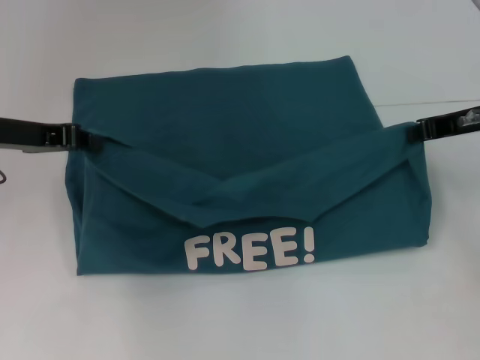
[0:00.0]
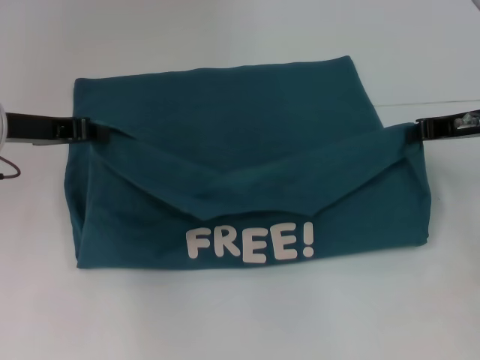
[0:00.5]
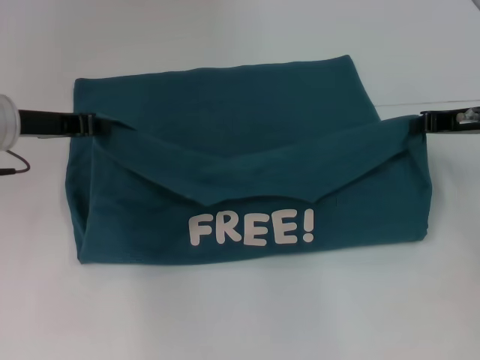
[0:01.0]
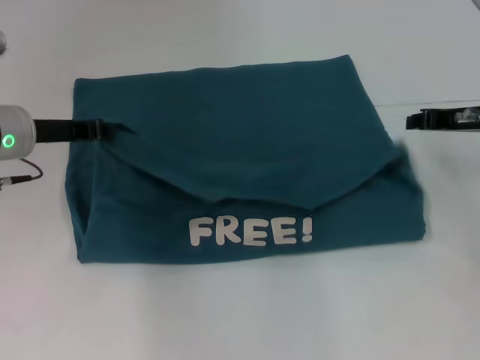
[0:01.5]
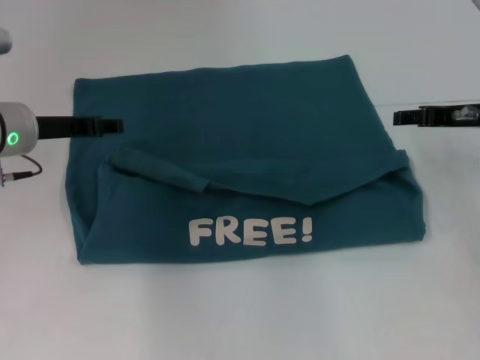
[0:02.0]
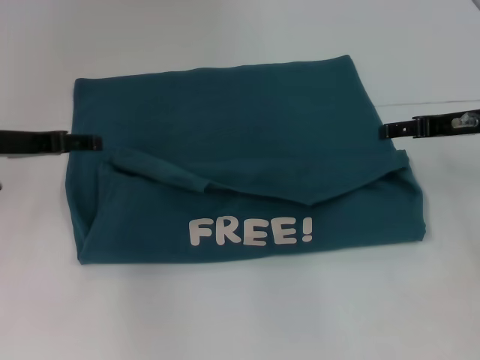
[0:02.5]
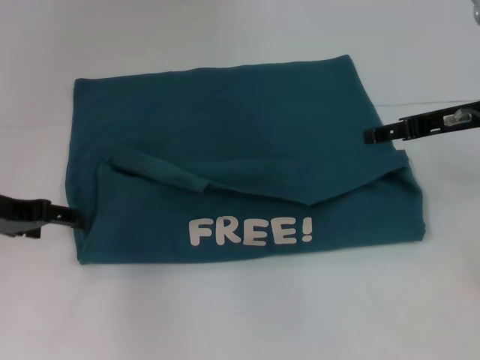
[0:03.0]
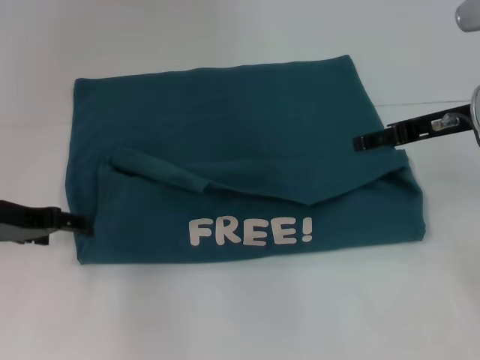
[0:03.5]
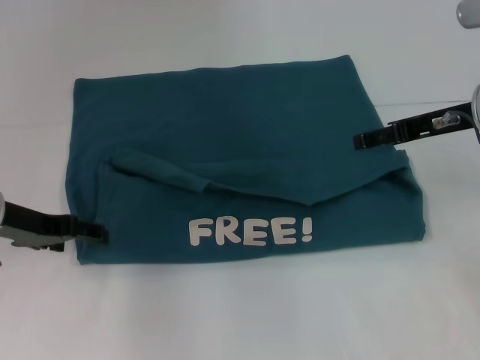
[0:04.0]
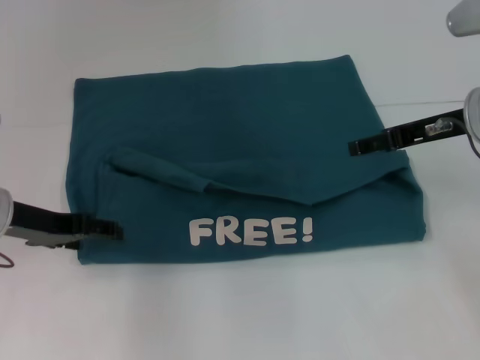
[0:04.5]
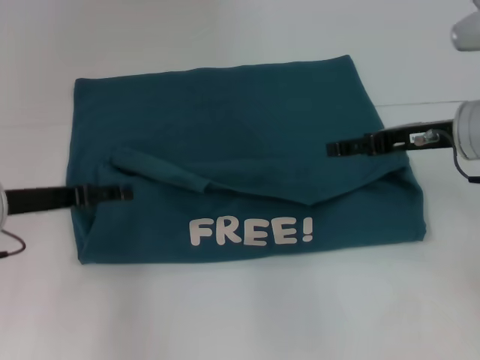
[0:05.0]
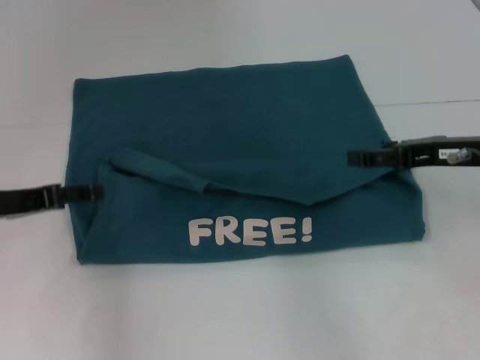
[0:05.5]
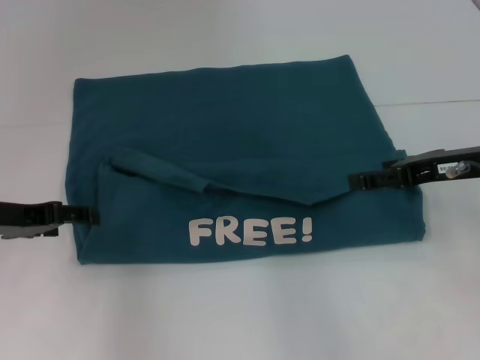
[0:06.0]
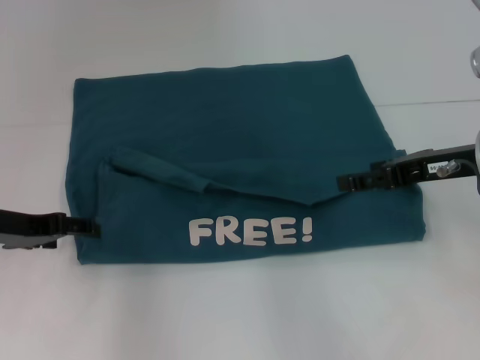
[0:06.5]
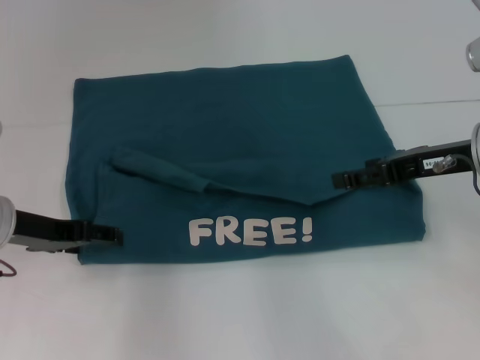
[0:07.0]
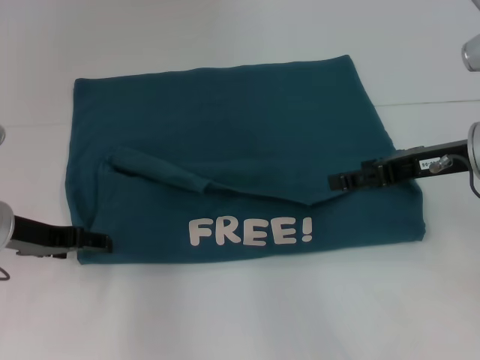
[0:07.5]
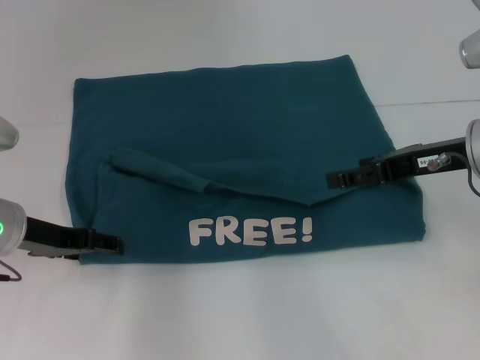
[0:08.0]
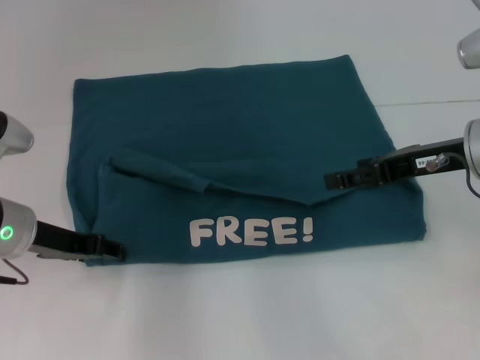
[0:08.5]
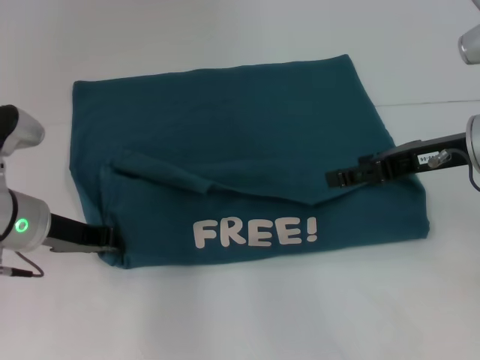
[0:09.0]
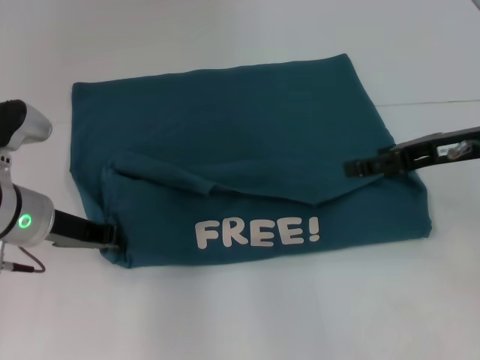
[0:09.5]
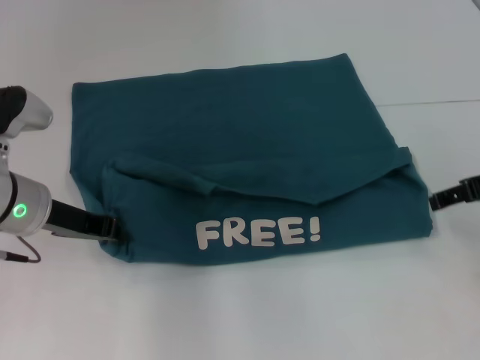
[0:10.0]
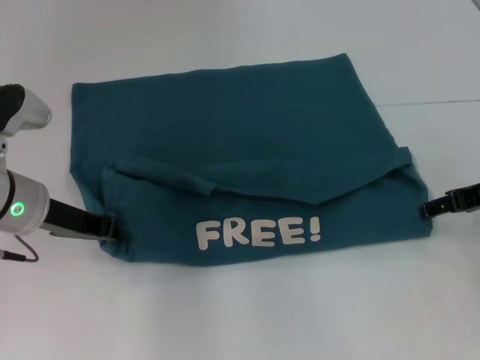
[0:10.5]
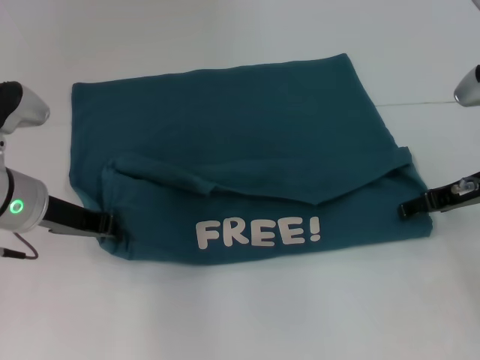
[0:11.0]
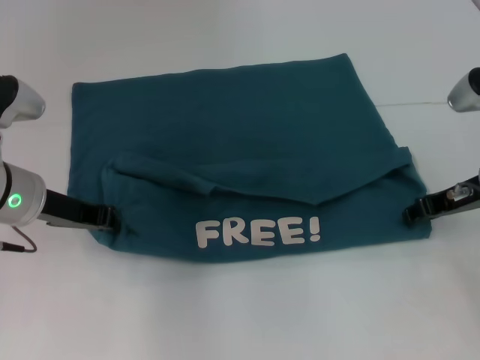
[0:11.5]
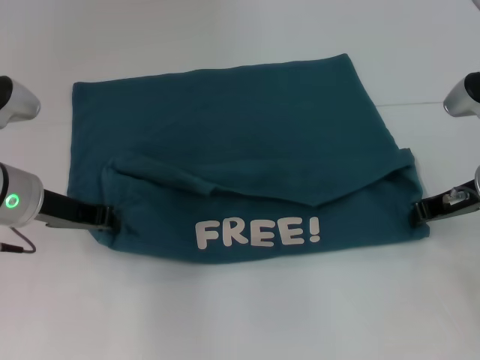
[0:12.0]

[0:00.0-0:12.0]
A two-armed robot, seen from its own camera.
Step, 0:00.0 to 0:02.0: Fold the clothes to the left.
Step, 0:00.0 to 0:02.0: Fold the clothes to the right.
0:00.0 to 0:02.0: The left gripper moves about 5 cm, and opens up; the right gripper opens its fingers.
0:02.0 to 0:04.0: The left gripper heads backward, covering some 5 cm, and opens up, while the right gripper moves approximately 5 cm, and opens up.
0:06.0 to 0:08.0: The grippers stay close to where they were, moving slightly.
0:08.0 to 0:10.0: The left gripper closes; the right gripper is displaced to the right by roughly 5 cm.
0:10.0 to 0:12.0: The right gripper moves downward, approximately 5 cm, and closes its fingers.

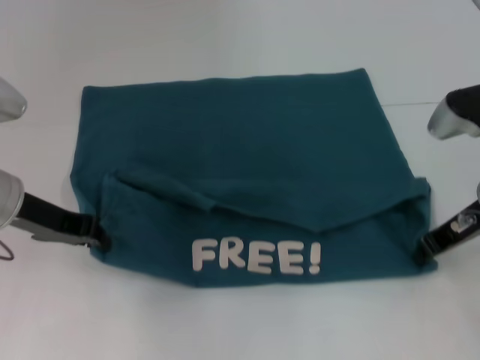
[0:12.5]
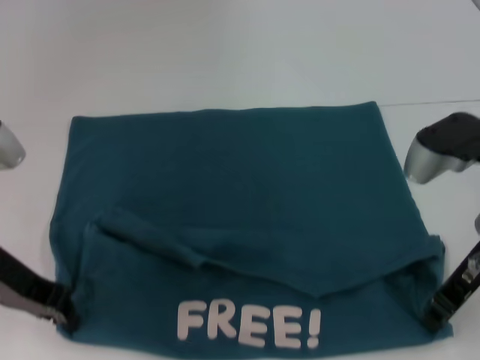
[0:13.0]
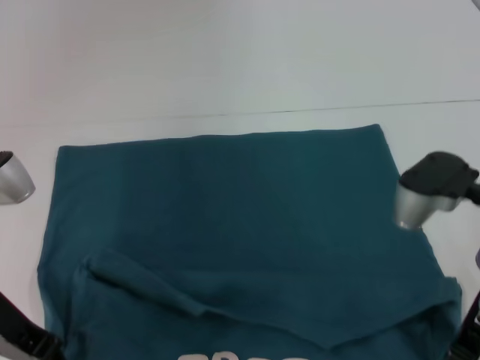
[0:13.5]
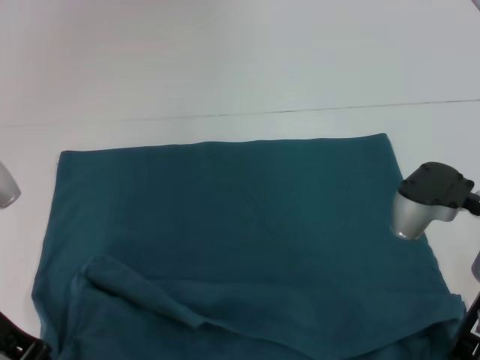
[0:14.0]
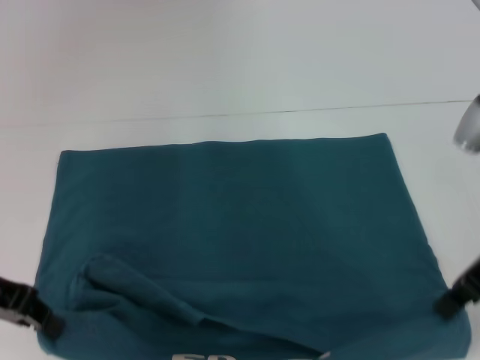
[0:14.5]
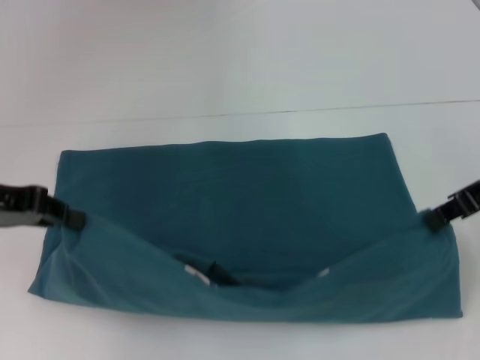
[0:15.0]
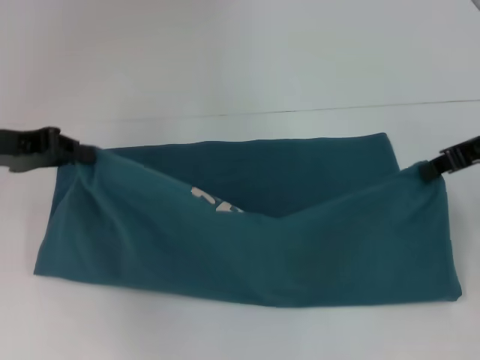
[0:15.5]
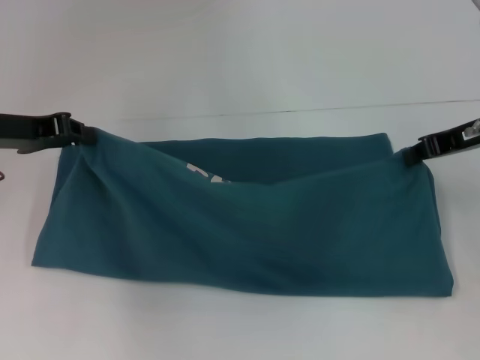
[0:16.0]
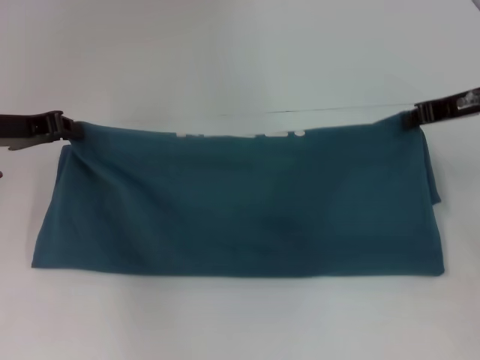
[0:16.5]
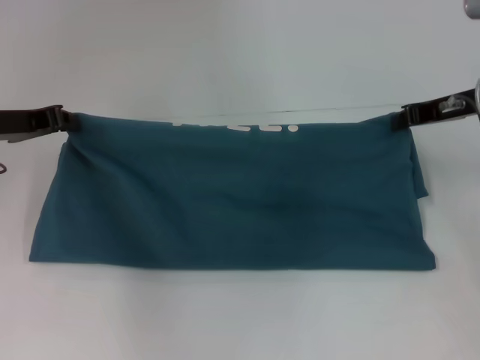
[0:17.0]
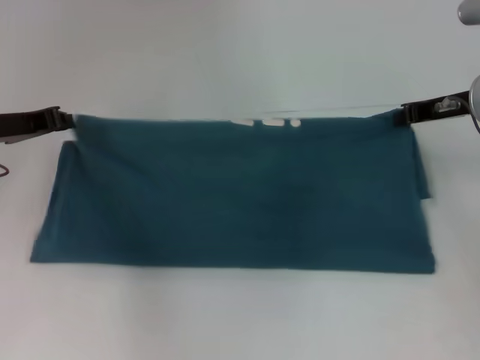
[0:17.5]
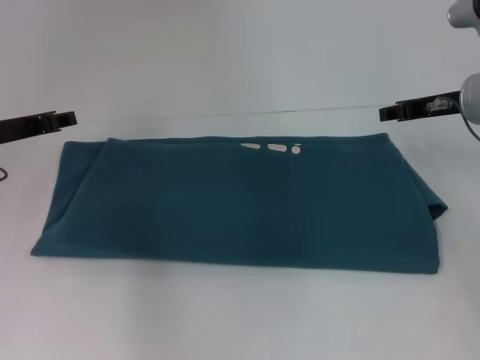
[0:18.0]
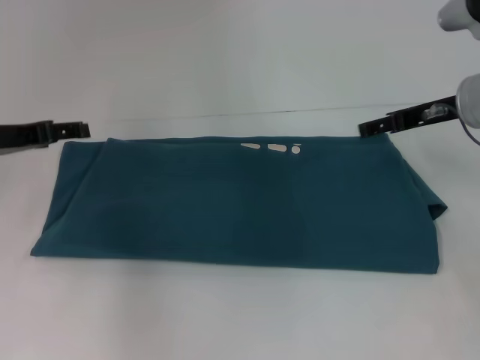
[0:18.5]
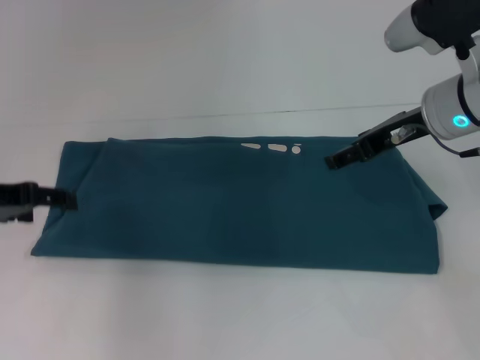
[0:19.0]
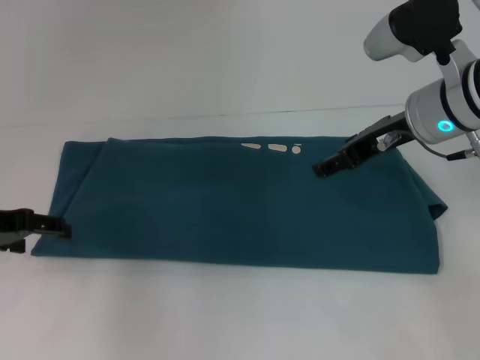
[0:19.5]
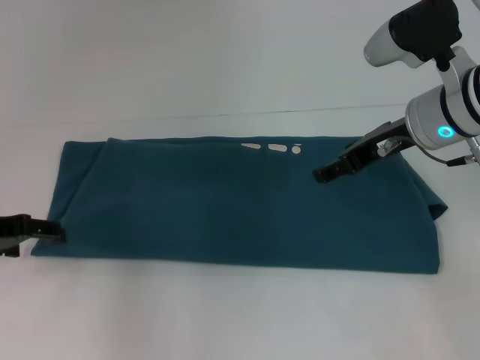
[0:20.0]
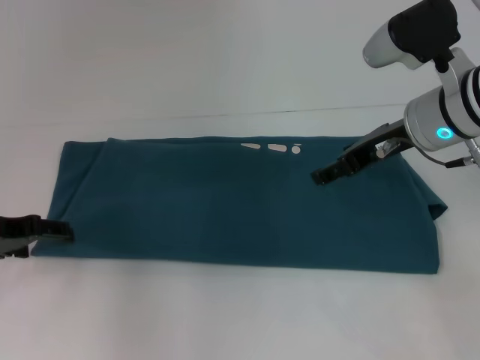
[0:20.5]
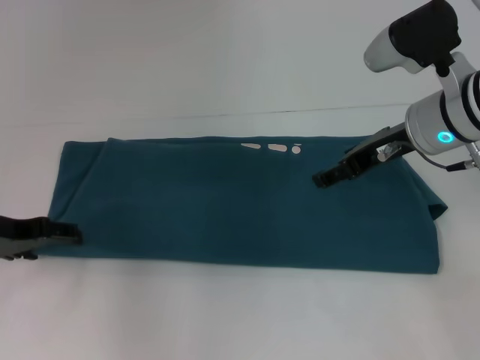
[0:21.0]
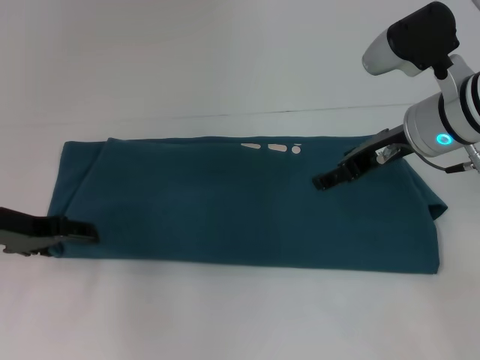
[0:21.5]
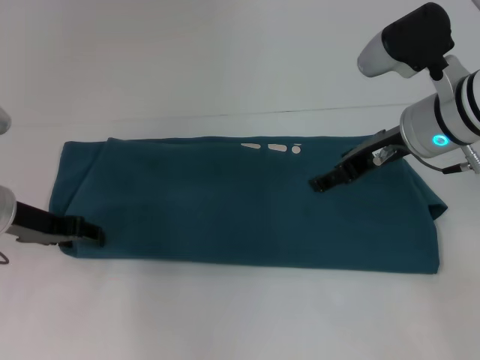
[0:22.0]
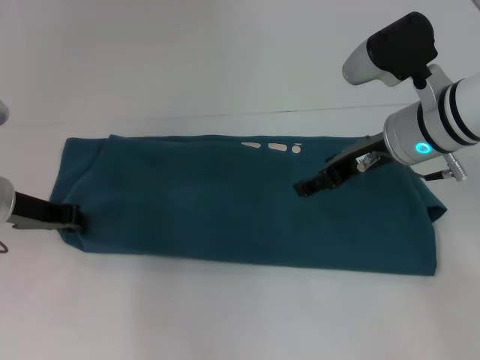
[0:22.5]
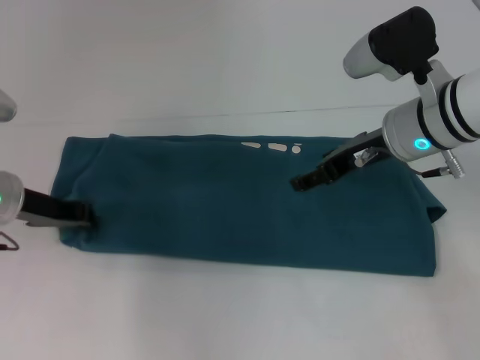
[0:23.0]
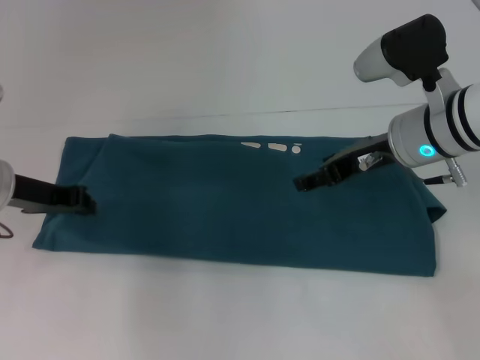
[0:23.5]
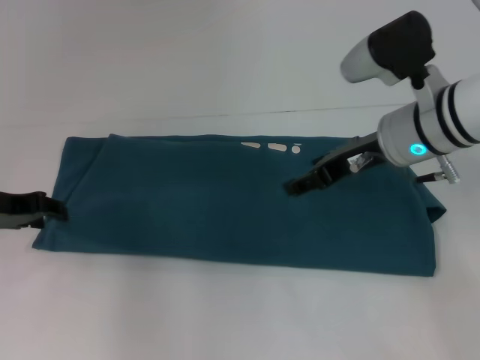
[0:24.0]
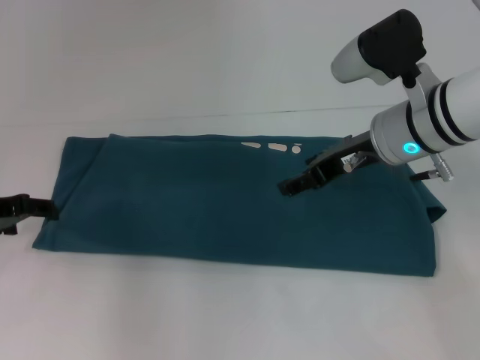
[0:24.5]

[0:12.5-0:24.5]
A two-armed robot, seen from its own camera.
Step, 0:14.0 to 0:17.5: Fold the clothes to the left.
Step, 0:14.0 to 0:17.5: Fold the clothes to the right.
0:12.5 to 0:14.5: The left gripper travels backward by some 5 cm. Meanwhile the right gripper heads upward, covering about 5 cm.
0:14.5 to 0:16.5: The two grippers go some 10 cm forward.
0:16.5 to 0:18.5: The left gripper opens up; the right gripper opens up.
0:18.5 to 0:20.5: The right gripper is displaced to the left by some 5 cm. The left gripper ends up roughly 5 cm from where it was.
0:20.5 to 0:22.5: The left gripper closes.
0:22.5 to 0:24.5: The grippers make only small movements.

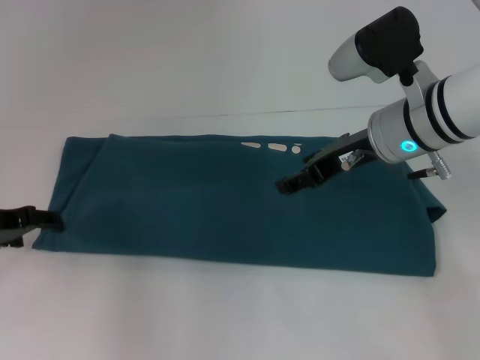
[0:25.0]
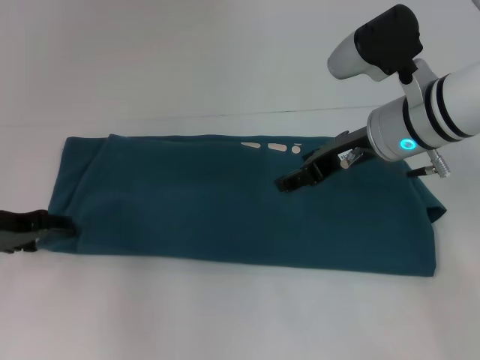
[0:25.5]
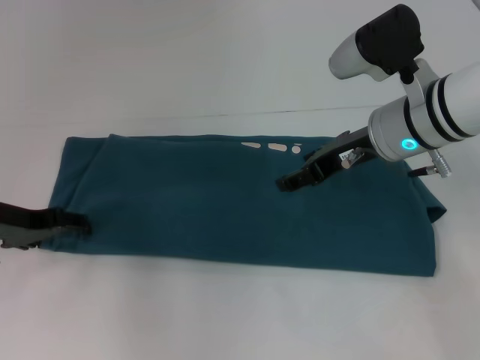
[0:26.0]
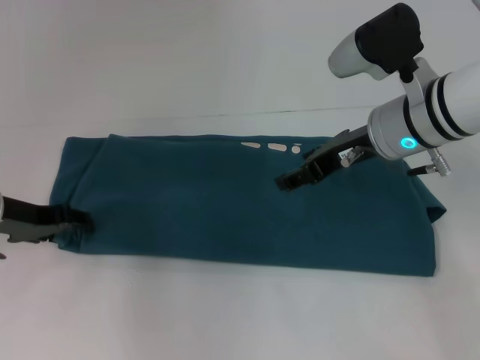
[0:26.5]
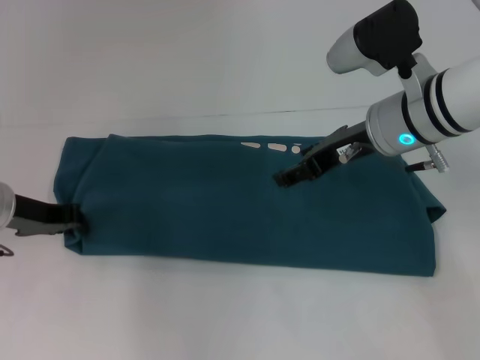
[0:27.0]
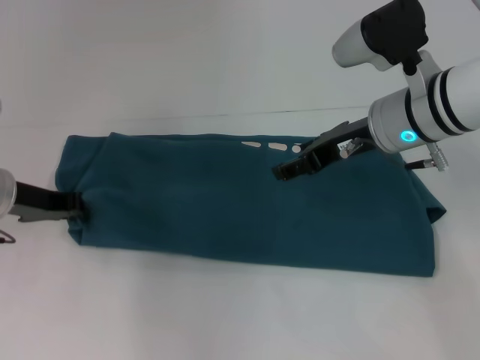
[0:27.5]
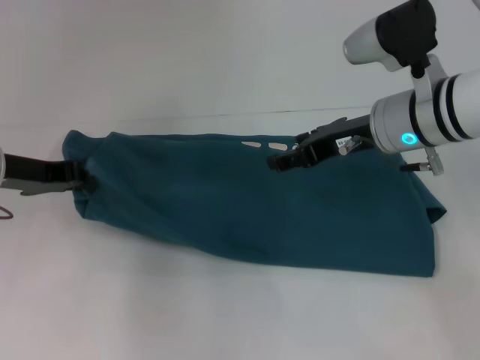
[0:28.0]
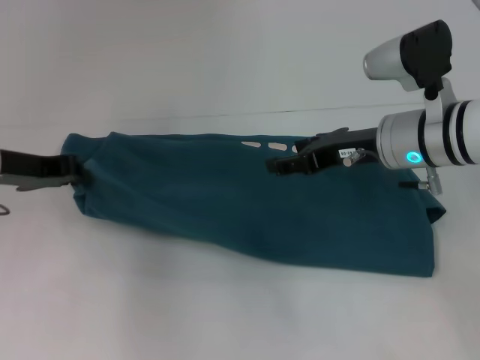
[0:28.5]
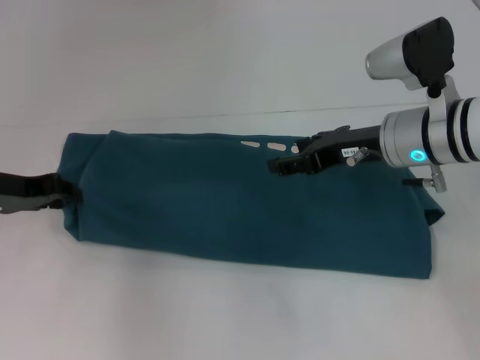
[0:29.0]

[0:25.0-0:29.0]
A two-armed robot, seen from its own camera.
0:25.0 to 0:27.0: The left gripper closes up.
0:27.0 to 0:29.0: The grippers move only a little.
